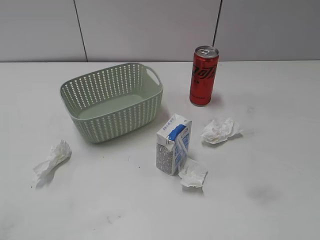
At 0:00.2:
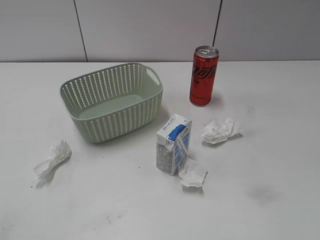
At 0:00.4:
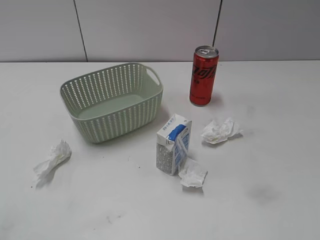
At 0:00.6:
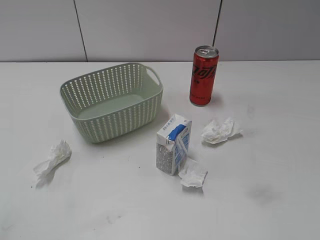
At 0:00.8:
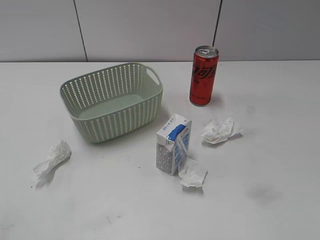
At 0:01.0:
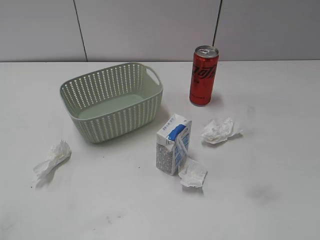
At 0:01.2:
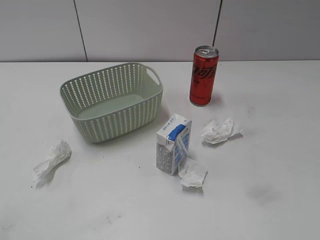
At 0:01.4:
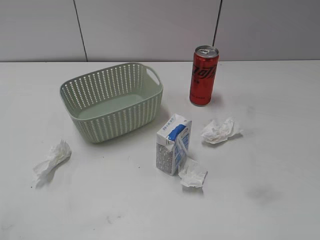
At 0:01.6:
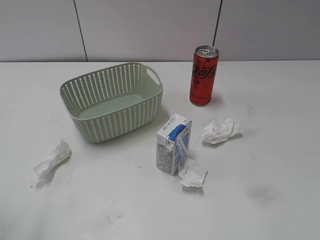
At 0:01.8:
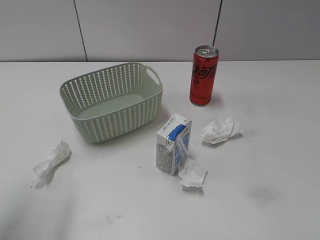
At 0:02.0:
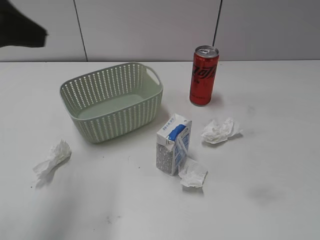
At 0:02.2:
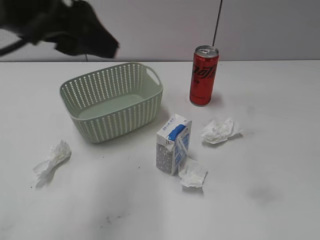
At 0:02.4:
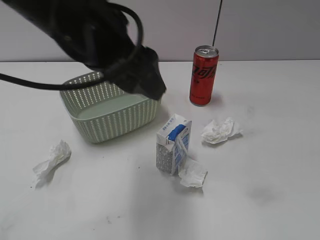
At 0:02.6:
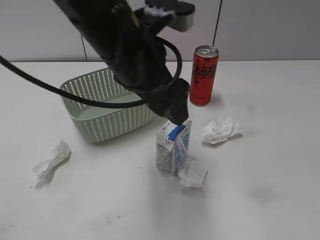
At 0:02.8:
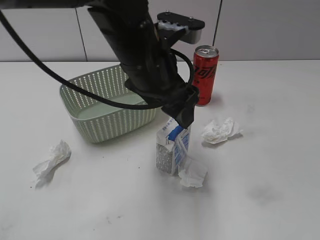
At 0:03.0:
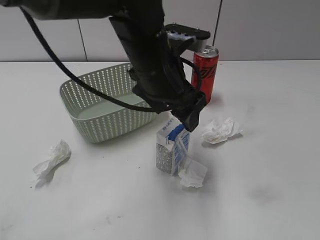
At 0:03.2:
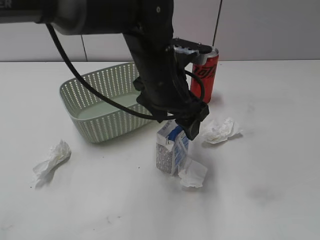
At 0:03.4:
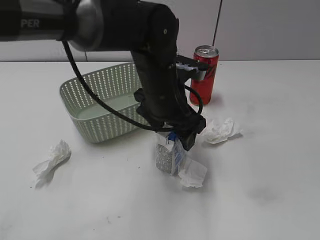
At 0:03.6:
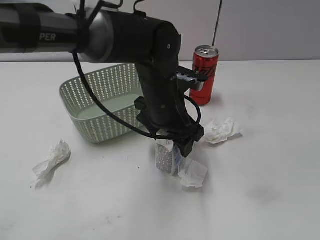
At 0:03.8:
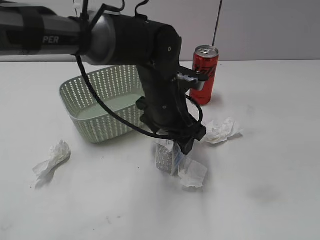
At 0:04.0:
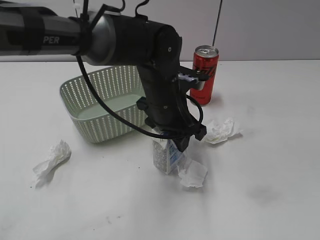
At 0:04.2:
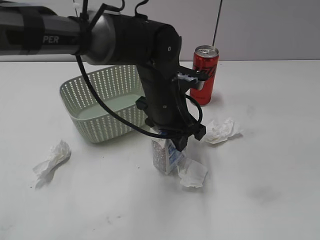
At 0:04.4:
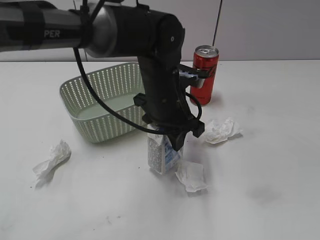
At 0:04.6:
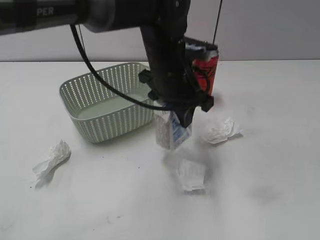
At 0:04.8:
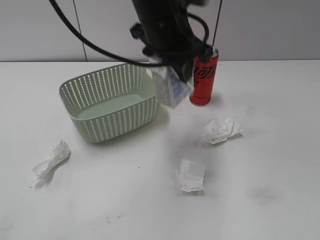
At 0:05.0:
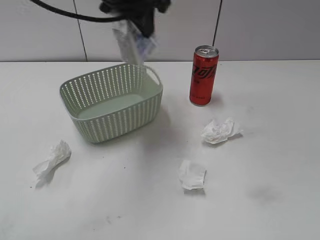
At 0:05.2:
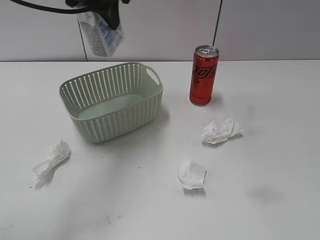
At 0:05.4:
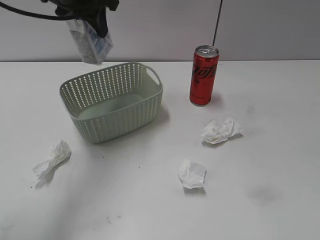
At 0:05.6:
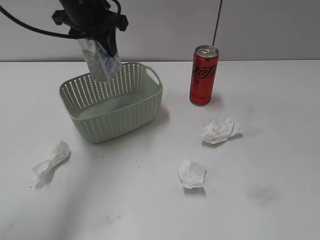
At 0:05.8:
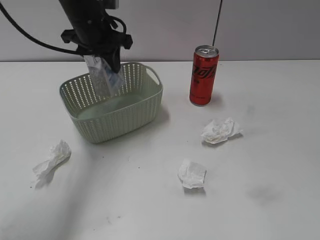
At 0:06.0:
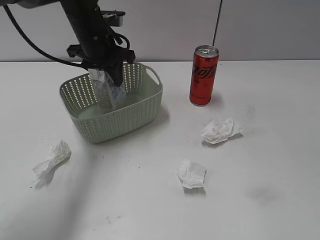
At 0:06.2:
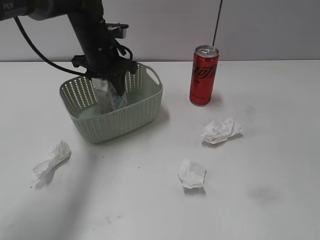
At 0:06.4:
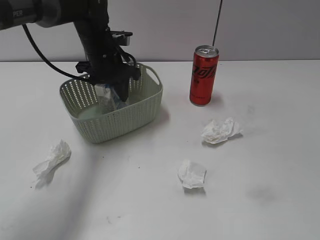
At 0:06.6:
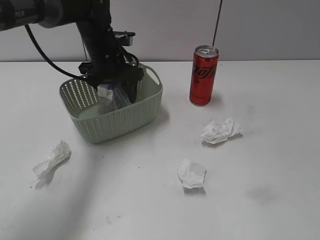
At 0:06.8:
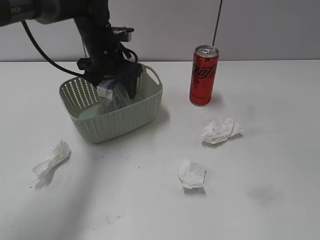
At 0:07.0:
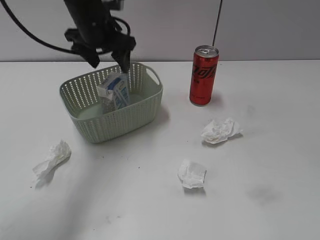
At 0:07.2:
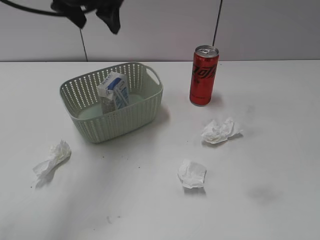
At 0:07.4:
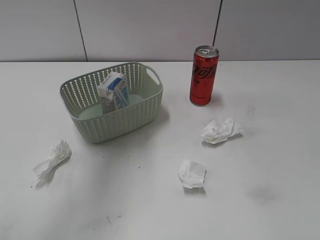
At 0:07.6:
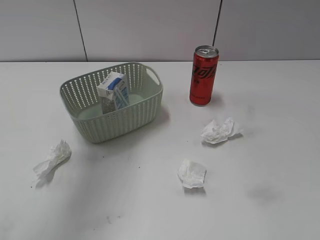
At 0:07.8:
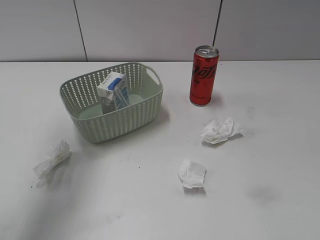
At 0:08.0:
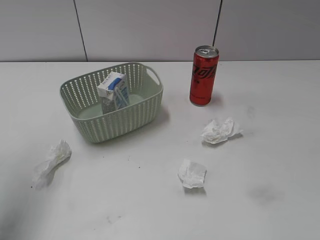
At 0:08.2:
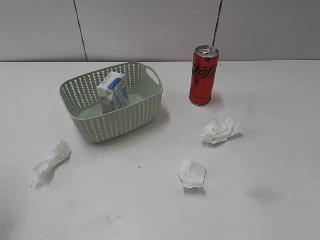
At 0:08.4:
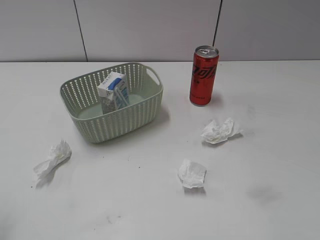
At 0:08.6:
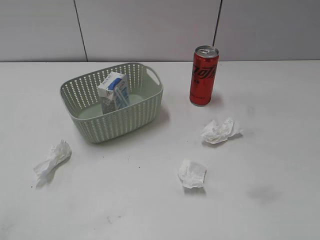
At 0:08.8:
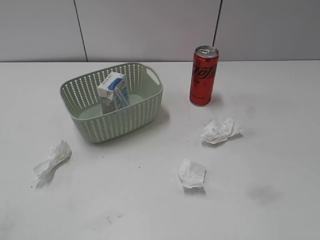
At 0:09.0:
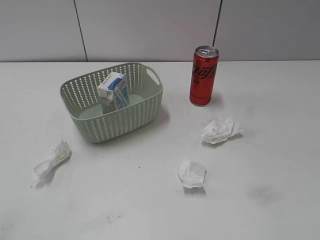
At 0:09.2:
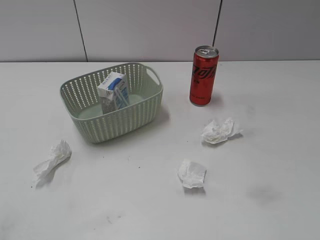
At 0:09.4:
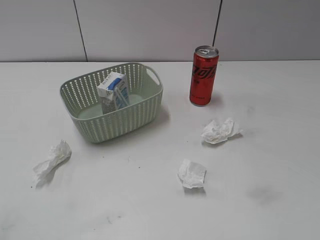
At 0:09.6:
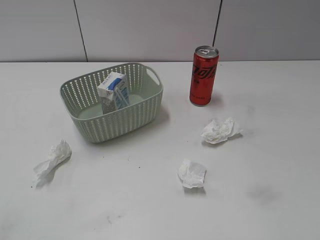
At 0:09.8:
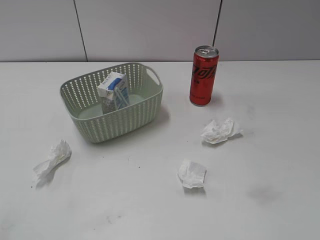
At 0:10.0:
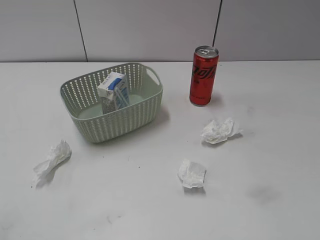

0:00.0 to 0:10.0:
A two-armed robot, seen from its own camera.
Step, 0:02.0 to 0:04.0: Grasp the milk with left gripper.
Step, 0:04.2 to 0:07.0: Place the milk in the basket with left gripper.
0:01.4 to 0:02.8: The left gripper is displaced to the right and forward by some 35 cm.
0:02.8 to 0:04.2: The left gripper moves downward, about 10 cm, and closes up.
0:04.2 to 0:05.8: The left gripper is displaced to the left, forward and upward by approximately 20 cm.
0:05.8 to 0:07.2: The left gripper heads upward, covering approximately 10 cm, and opens its fingers.
0:07.2 to 0:08.6: The left gripper goes approximately 40 cm backward and to the left.

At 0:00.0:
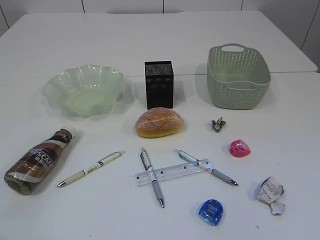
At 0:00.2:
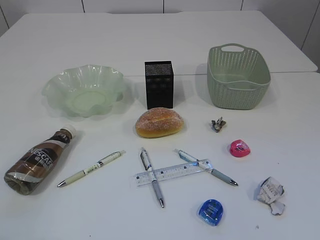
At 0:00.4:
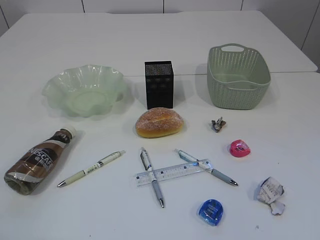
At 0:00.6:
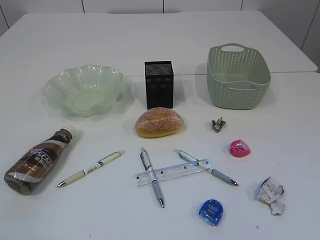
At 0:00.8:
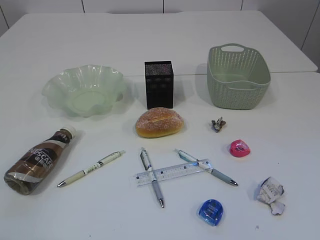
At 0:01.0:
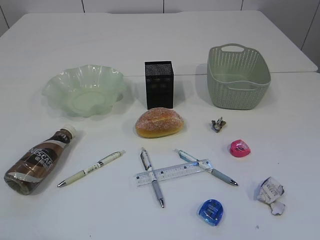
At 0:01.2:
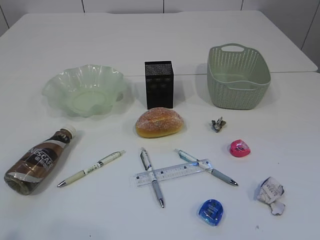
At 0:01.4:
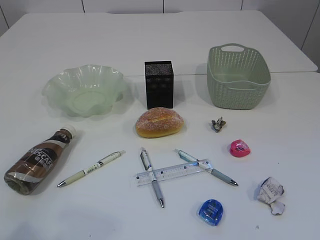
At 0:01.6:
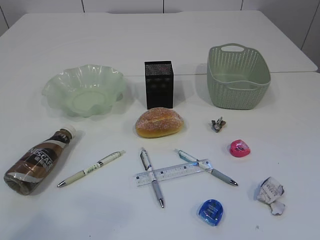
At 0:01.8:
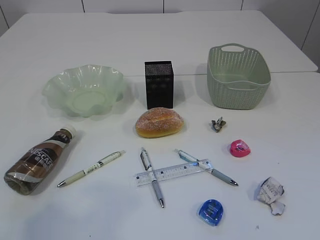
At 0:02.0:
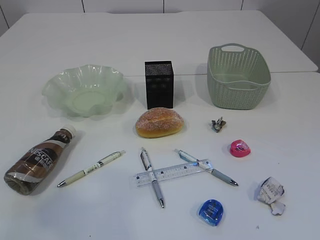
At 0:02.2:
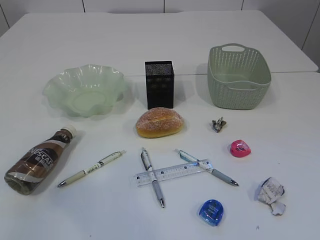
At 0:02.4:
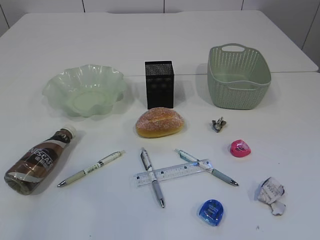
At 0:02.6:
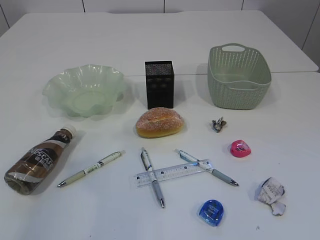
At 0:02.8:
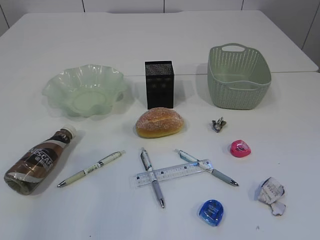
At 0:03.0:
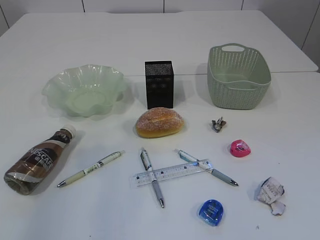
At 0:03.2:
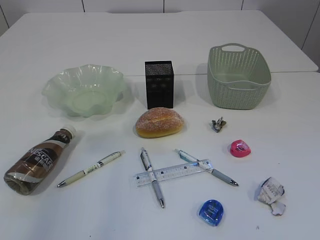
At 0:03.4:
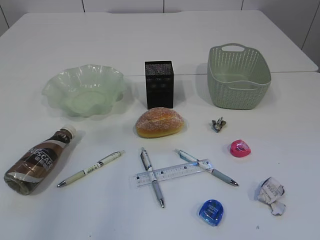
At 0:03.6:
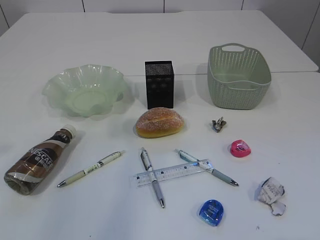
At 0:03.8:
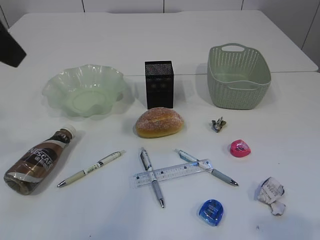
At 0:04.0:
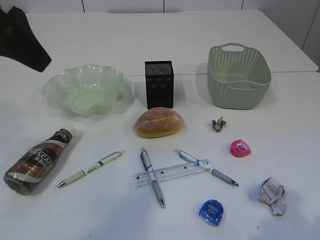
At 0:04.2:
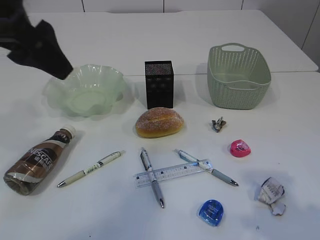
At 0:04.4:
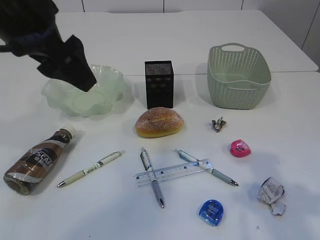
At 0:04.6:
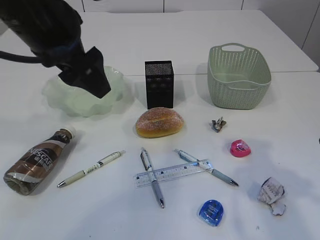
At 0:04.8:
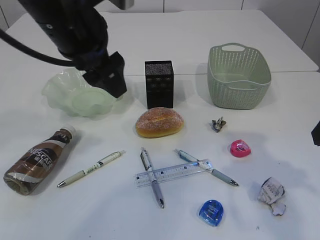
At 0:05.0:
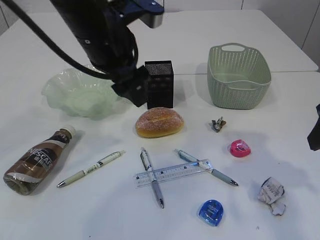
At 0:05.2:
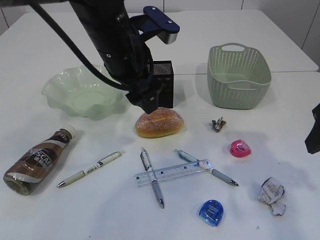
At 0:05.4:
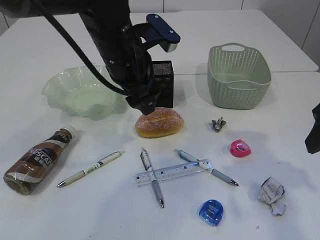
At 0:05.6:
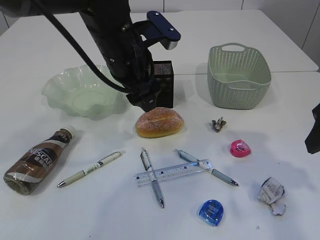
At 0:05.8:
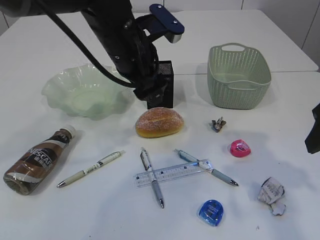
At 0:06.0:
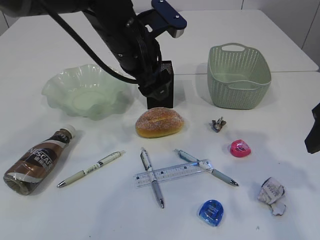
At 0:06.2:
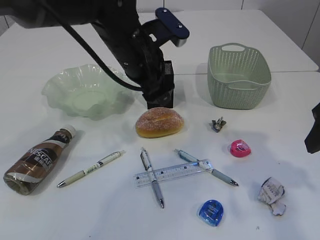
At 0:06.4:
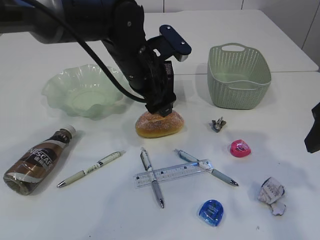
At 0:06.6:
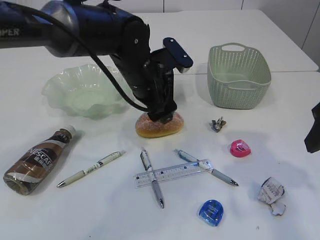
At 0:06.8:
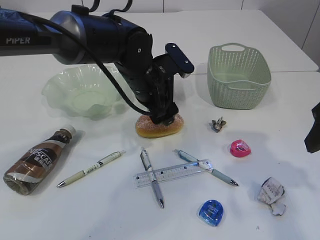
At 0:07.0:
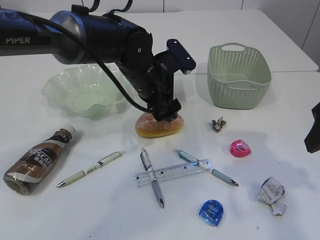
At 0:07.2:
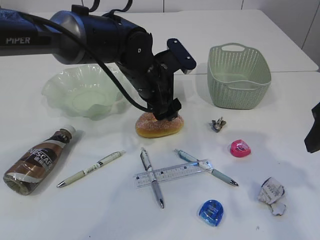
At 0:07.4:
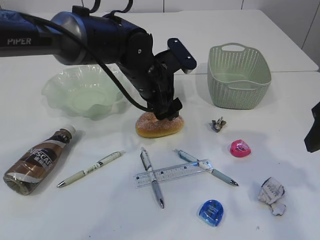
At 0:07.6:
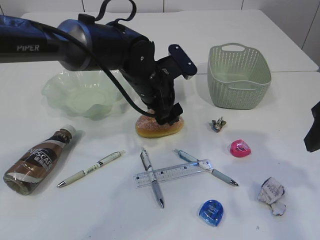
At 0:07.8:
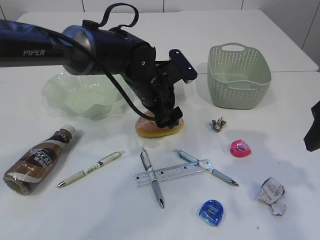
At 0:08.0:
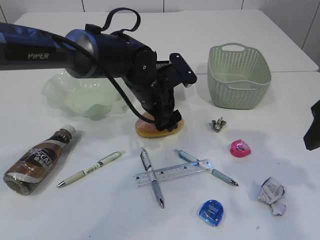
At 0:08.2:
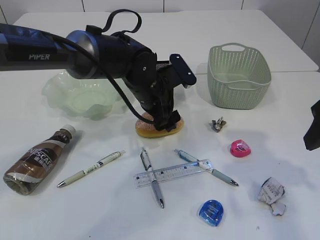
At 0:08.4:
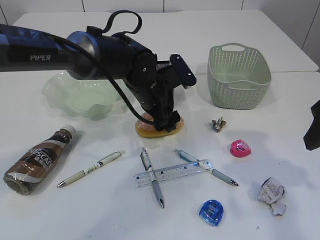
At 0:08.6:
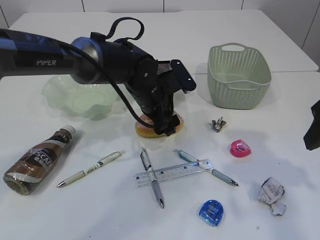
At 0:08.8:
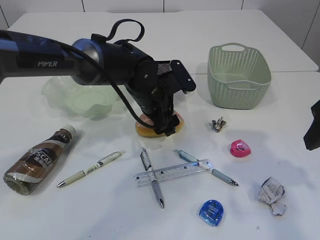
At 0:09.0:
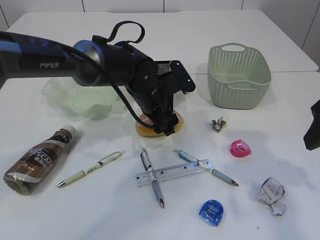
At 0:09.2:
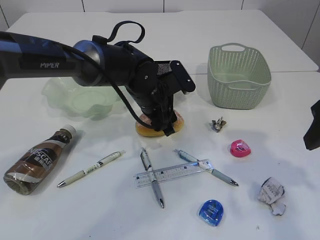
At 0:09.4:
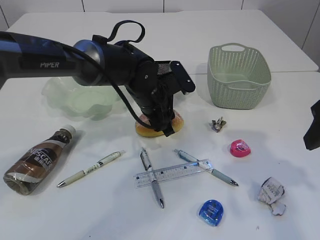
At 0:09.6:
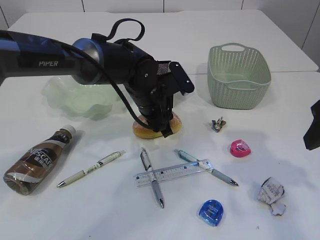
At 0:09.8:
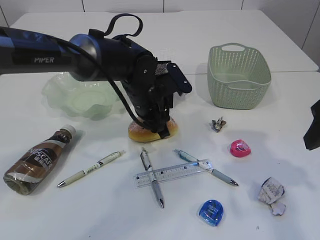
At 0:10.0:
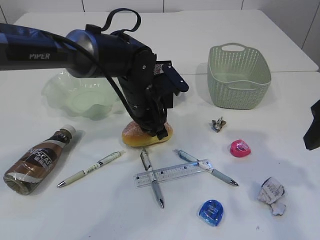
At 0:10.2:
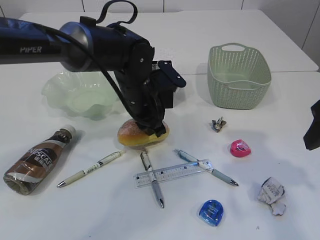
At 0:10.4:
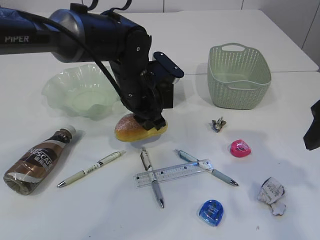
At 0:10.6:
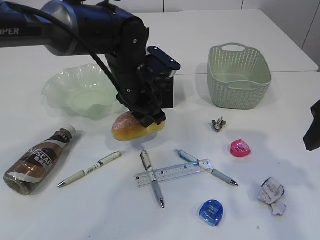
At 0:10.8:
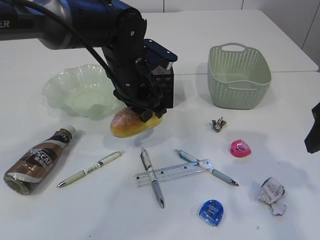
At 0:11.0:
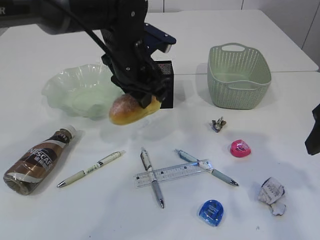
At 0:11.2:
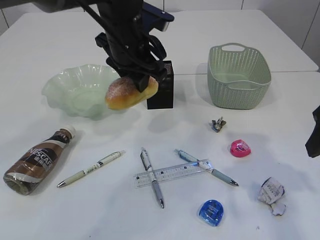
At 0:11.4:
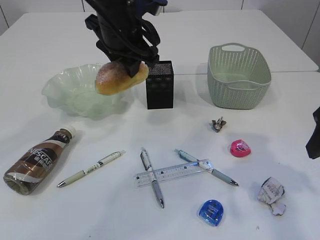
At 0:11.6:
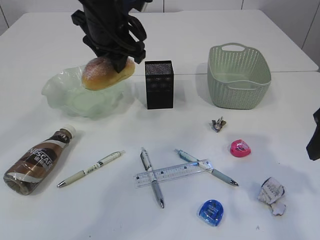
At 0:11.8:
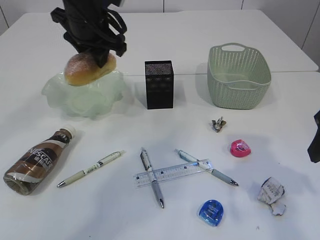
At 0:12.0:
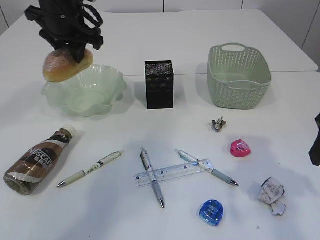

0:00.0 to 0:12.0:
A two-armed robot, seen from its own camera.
0:03.0 to 0:04.4: The left gripper goes some 15 cm to the right and forward.
0:04.4 to 0:06.0: The left gripper goes about 15 cm to the right, downward and forward, while the right gripper travels forward by about 10 cm.
0:06.0 to 0:07.6: The left gripper is displaced downward by about 10 cm.
0:07.6 to 0:09.0: There are only small adjustments of the grippers.
0:09.0 to 0:10.4: The left gripper changes place by approximately 5 cm, and closes.
0:10.4 to 0:12.0: The left gripper shifts approximately 15 cm to the left, upward and forward.
